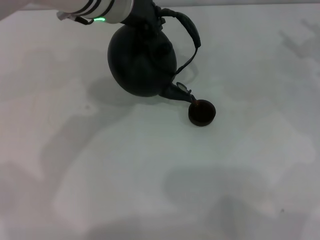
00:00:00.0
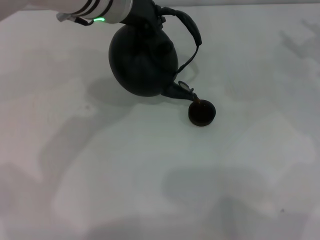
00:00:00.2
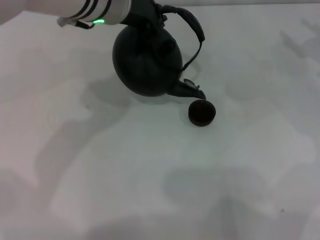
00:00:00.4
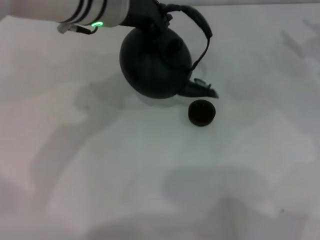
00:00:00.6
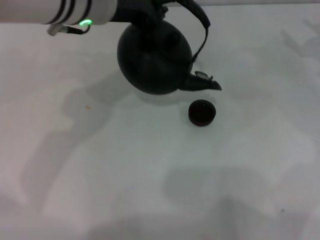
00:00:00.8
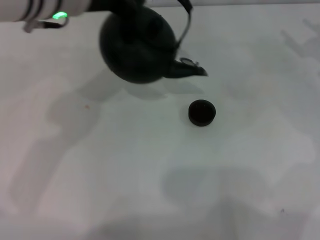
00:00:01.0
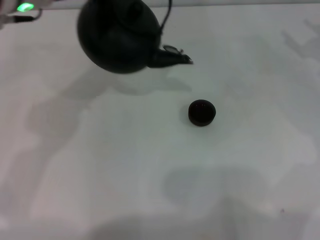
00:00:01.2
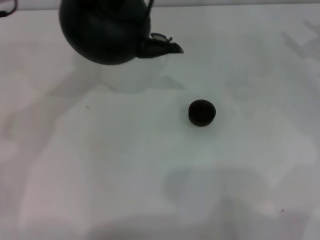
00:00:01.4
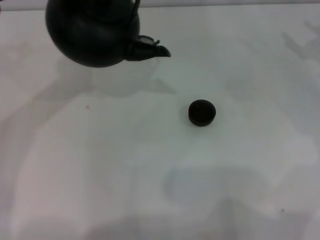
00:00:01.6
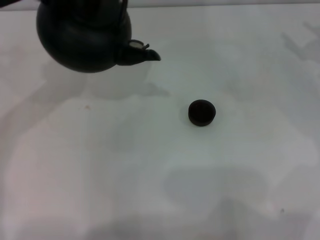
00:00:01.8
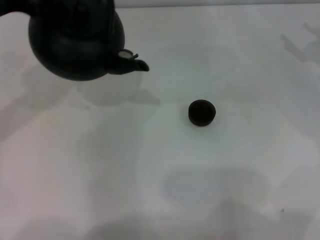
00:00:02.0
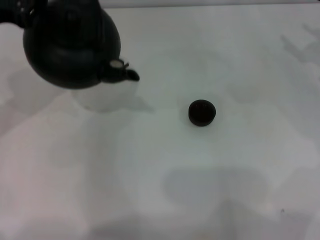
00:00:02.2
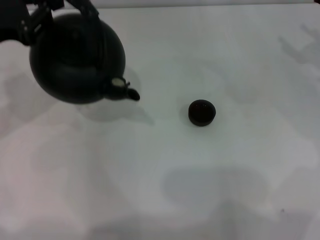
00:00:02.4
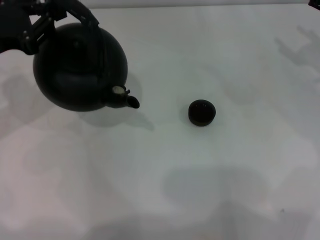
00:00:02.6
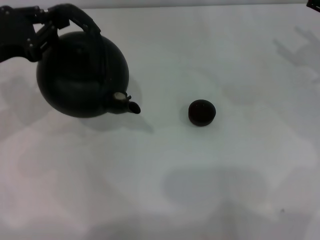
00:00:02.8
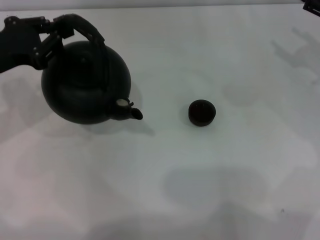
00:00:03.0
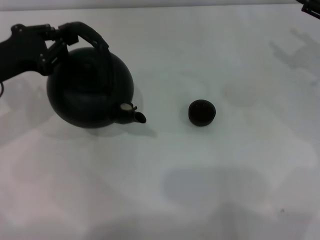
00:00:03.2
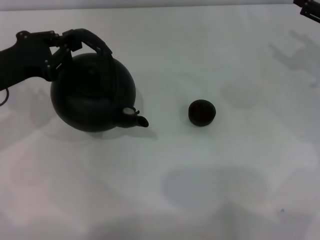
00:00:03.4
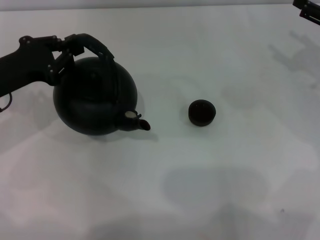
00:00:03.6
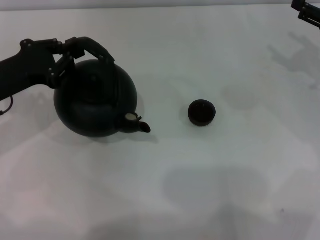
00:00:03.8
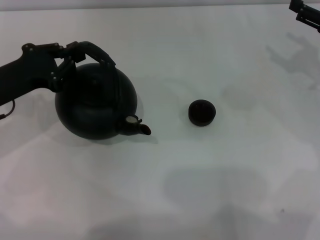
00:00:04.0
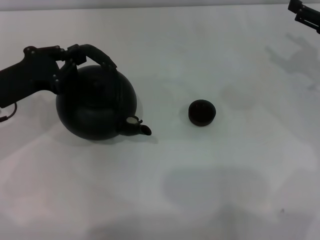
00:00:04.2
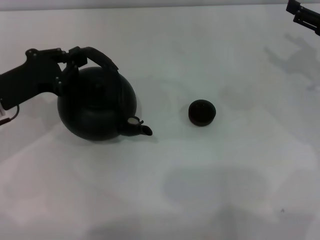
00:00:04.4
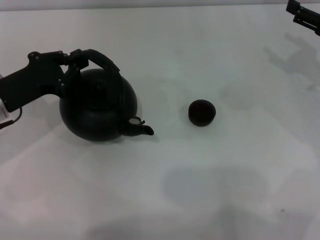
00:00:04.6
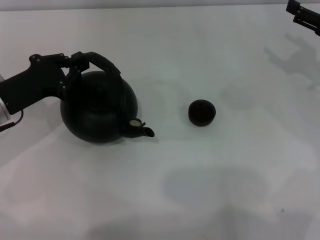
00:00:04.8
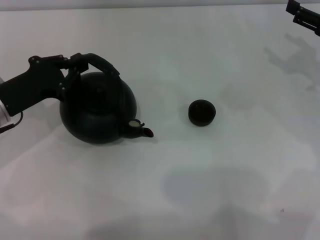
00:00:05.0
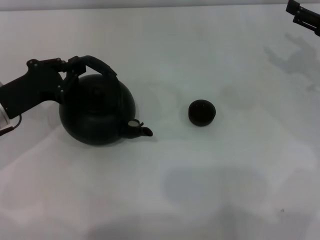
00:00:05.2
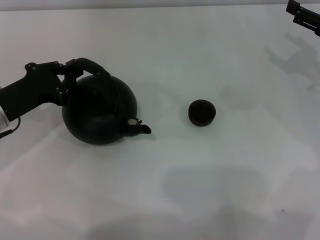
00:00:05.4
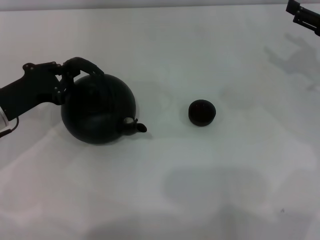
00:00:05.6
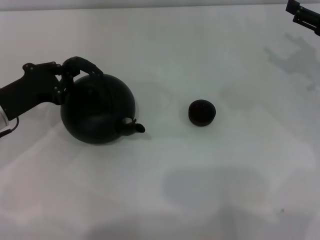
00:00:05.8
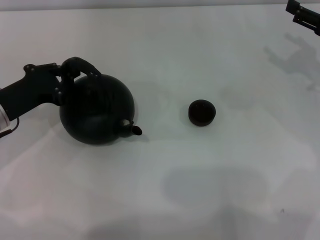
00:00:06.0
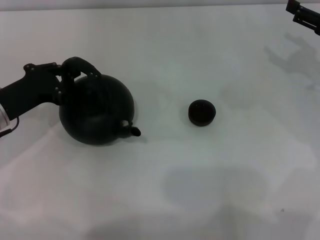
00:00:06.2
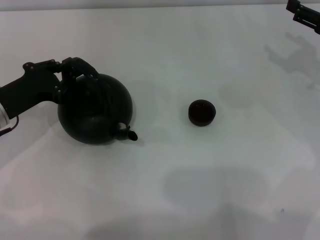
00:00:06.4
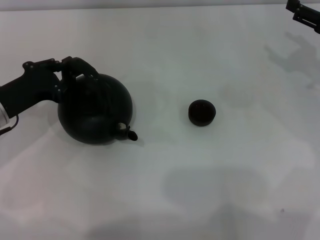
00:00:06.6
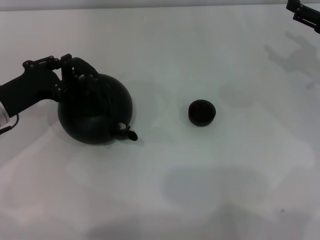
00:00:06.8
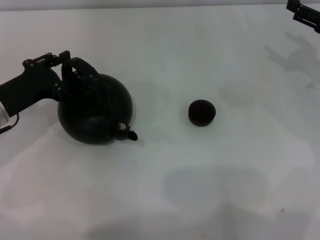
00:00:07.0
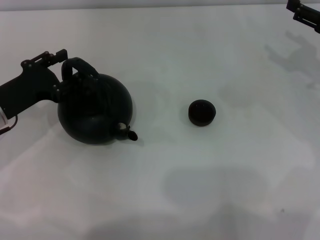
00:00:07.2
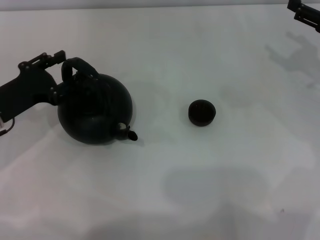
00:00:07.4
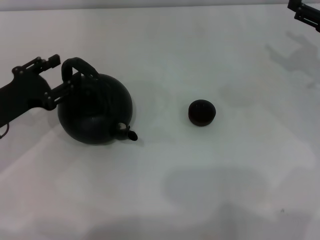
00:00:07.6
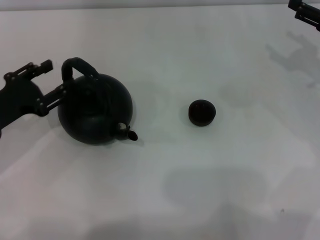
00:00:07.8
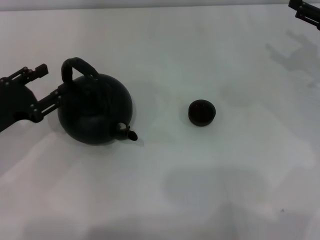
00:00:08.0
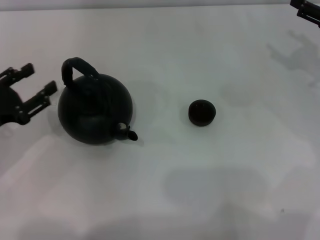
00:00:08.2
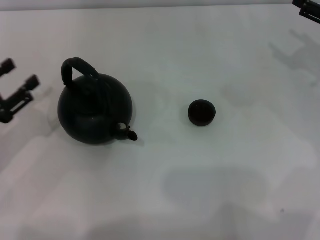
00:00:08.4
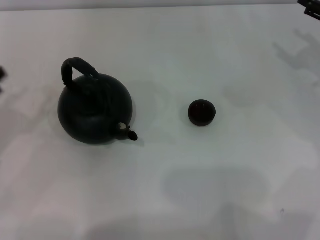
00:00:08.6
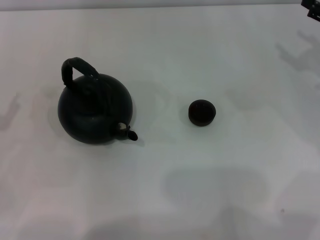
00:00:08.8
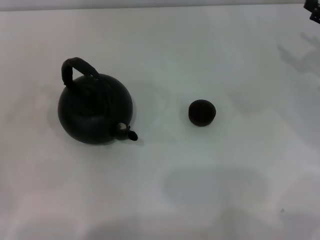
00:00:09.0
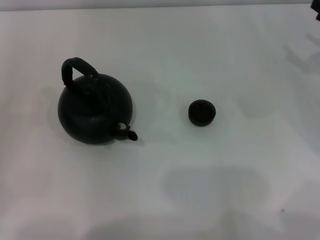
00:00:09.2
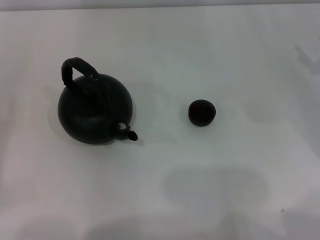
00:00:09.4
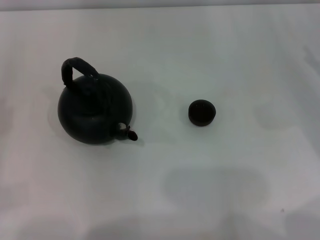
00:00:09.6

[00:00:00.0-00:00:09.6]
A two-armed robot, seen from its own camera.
Task of the whole recording: Grasp the handle of the teapot with one hand and pour tea into the teacup.
Step, 00:00:01.6 to 00:00:08.0: Put down the teapot with the left gripper.
00:00:00.0 to 00:00:01.6: The left gripper goes approximately 15 cm to the left.
00:00:01.6 to 00:00:03.2: The left gripper is displaced downward and to the left by approximately 15 cm.
00:00:03.2 to 00:00:04.8: The left gripper goes some 5 cm downward.
00:00:04.8 to 00:00:06.4: The grippers move only a little.
00:00:06.4 to 00:00:08.0: The left gripper opens its fingers.
00:00:08.0 to 00:00:09.6: The right gripper changes place by some 5 cm. The left gripper shifts about 15 cm to the left and backward.
